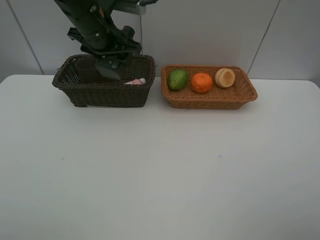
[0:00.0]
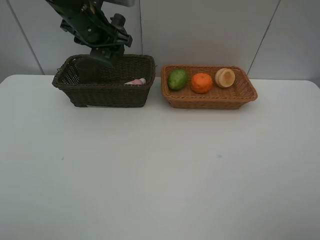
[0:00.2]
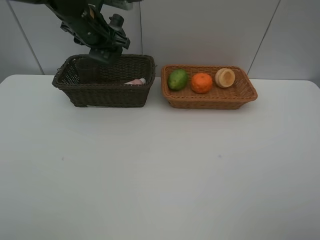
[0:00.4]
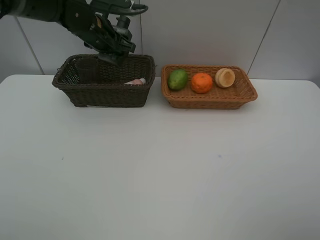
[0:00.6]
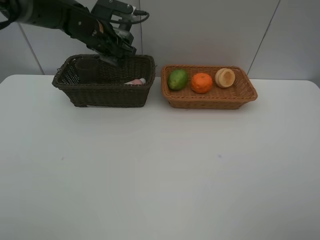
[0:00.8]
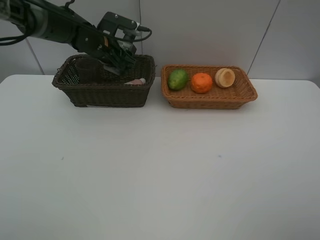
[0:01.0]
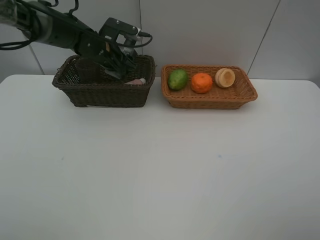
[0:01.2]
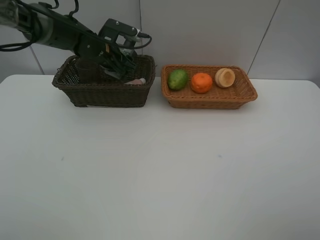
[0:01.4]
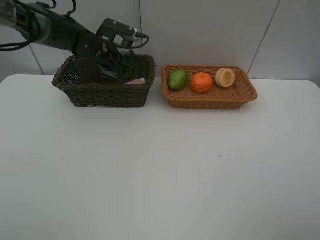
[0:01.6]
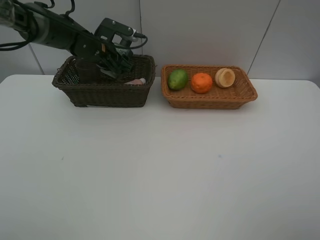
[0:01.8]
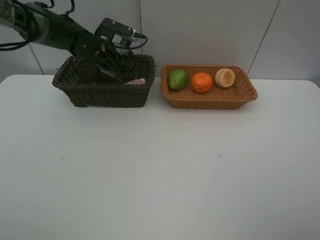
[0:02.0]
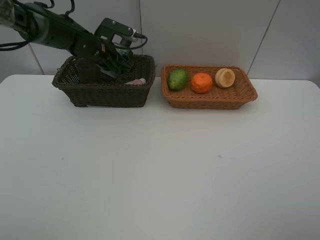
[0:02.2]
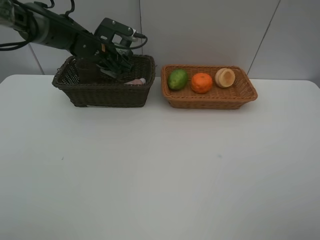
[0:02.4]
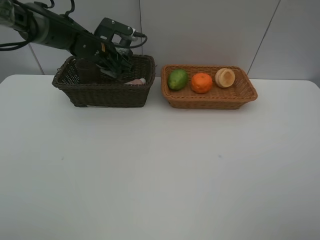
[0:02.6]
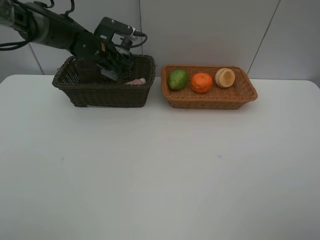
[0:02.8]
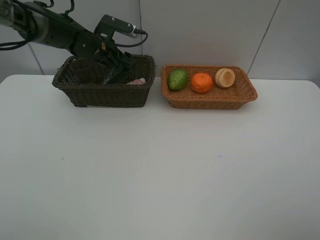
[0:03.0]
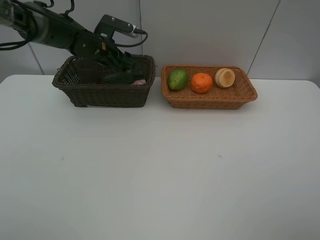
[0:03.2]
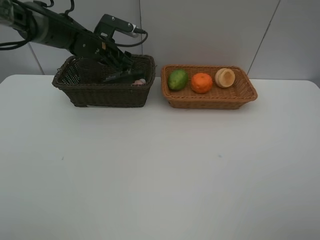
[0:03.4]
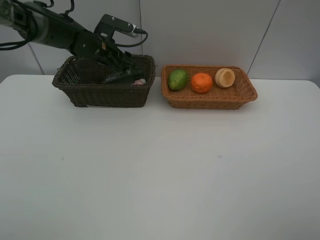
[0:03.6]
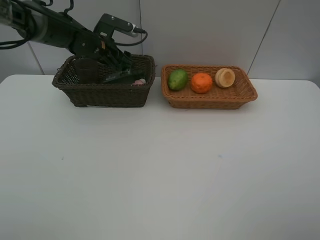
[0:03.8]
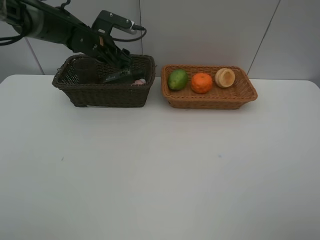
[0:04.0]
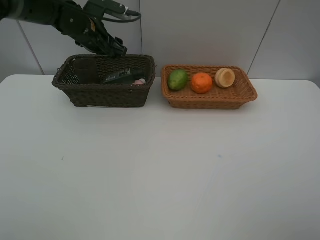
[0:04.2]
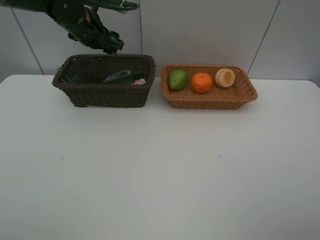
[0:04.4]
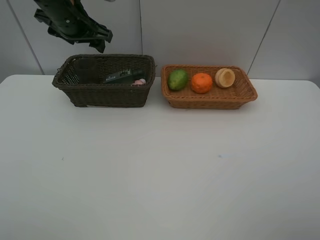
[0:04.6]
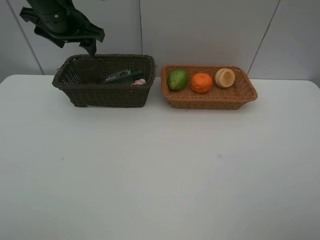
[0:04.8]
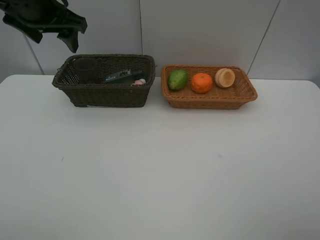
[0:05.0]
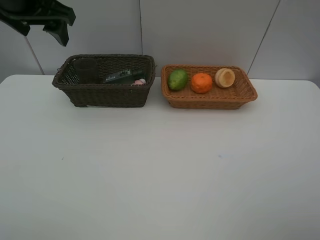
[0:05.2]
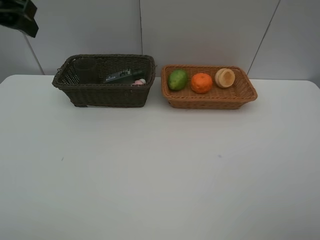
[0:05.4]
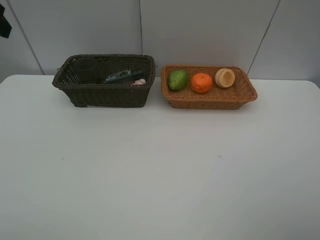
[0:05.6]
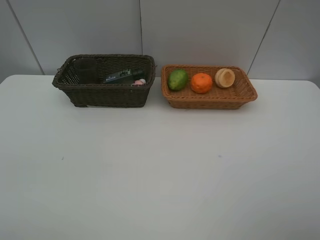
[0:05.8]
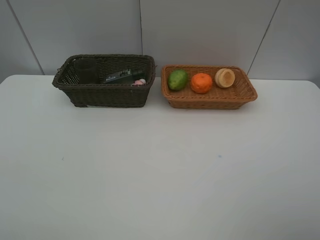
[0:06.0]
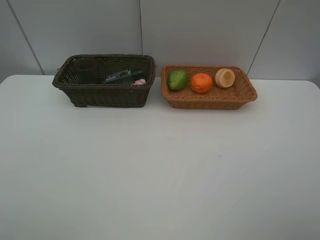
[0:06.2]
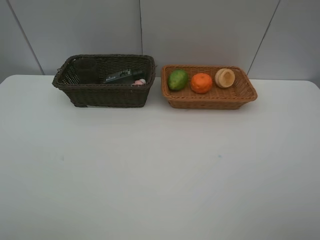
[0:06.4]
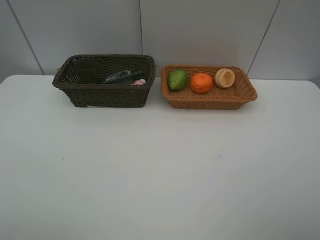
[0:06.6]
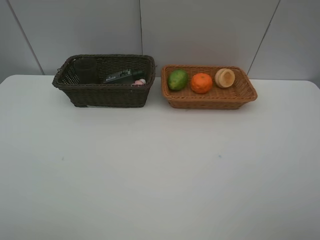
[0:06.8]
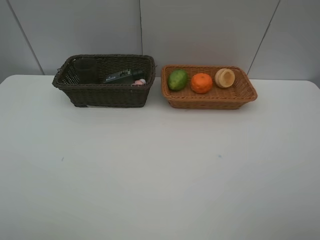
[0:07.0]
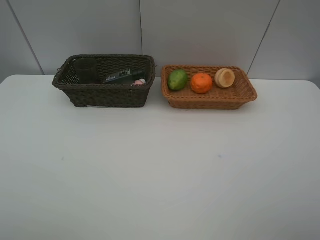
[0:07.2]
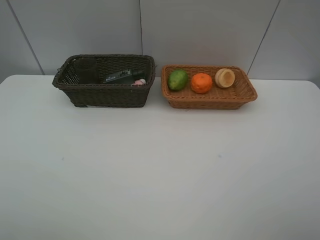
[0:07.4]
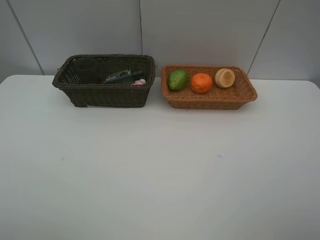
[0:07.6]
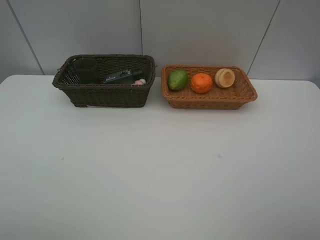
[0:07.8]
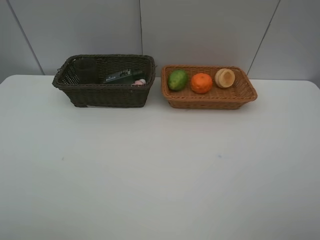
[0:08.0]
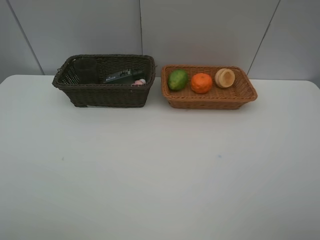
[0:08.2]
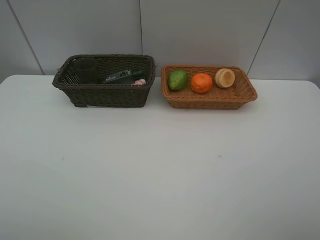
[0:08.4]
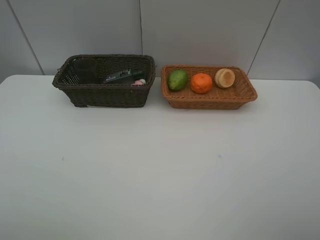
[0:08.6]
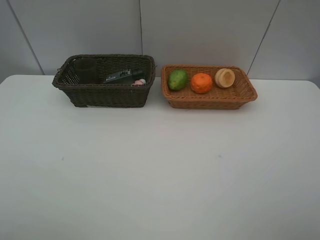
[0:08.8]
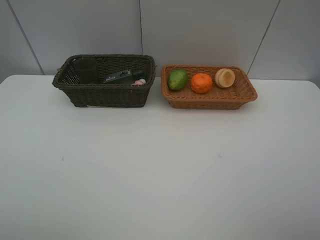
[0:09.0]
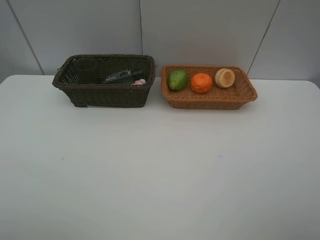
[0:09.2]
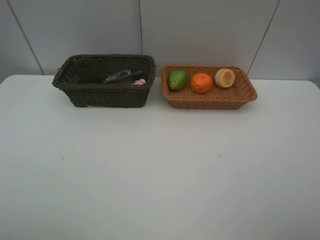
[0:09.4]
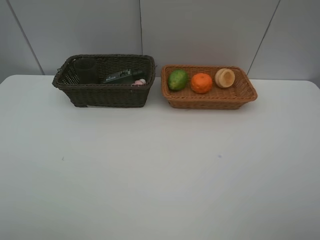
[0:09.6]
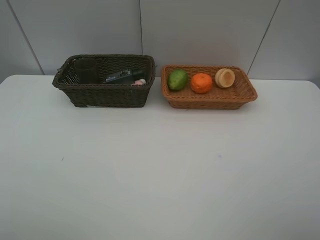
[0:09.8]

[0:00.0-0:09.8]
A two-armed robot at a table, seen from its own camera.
Task of the whole recording: place multiple objects separately in different baskets.
0:00.0 to 0:01.4: The left gripper shifts roughly 10 cm downward and forward.
0:01.4 to 0:02.8: Neither gripper changes place.
0:02.8 to 0:04.2: The left gripper moves upward, about 5 cm.
0:04.2 to 0:05.6: The left gripper travels backward, upward and to the left by roughly 30 cm.
0:08.4 to 0:09.8: Both grippers stay about where they are.

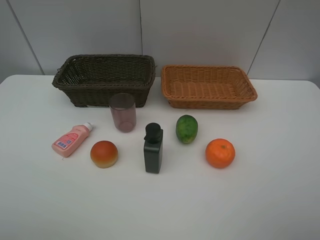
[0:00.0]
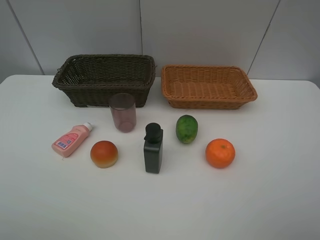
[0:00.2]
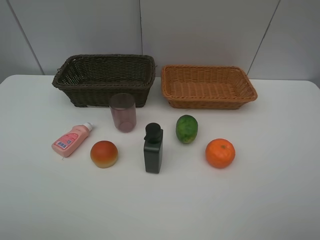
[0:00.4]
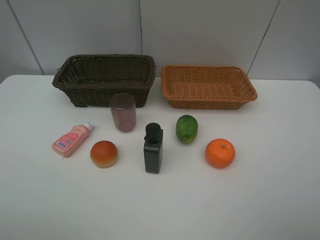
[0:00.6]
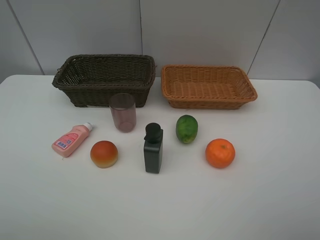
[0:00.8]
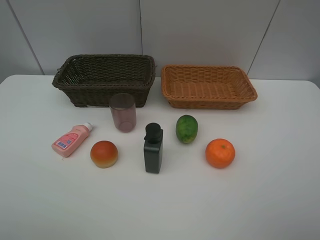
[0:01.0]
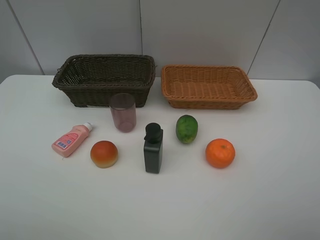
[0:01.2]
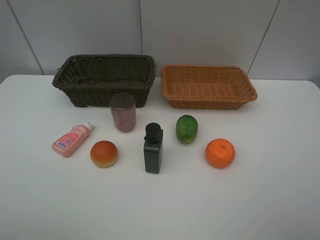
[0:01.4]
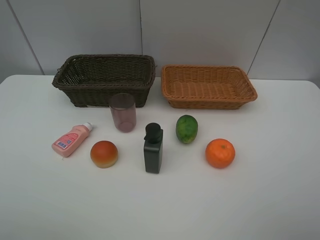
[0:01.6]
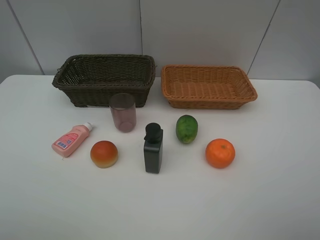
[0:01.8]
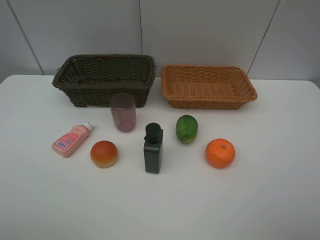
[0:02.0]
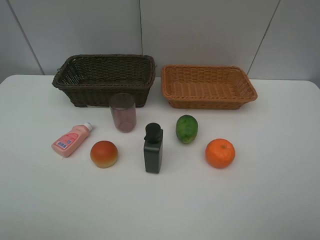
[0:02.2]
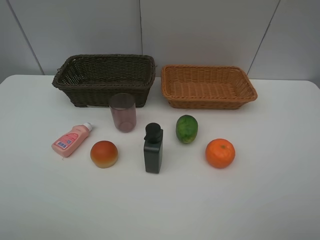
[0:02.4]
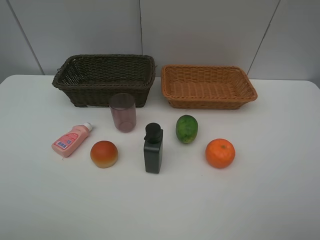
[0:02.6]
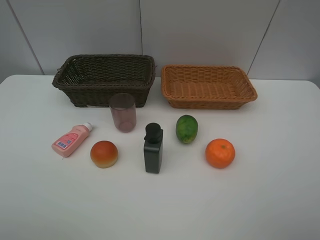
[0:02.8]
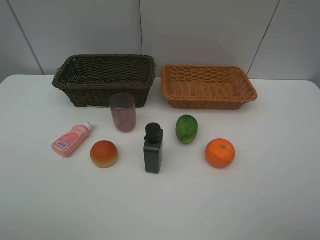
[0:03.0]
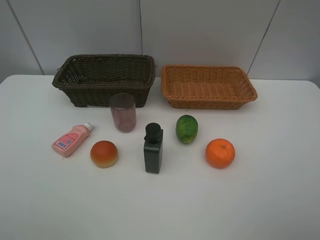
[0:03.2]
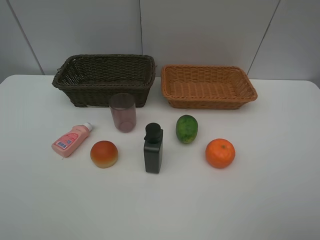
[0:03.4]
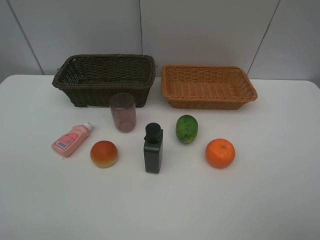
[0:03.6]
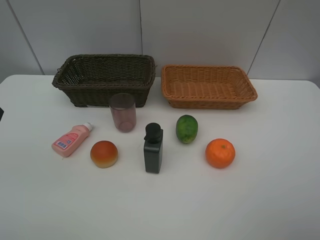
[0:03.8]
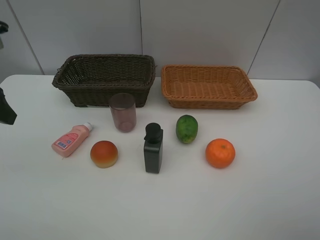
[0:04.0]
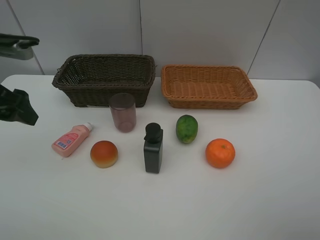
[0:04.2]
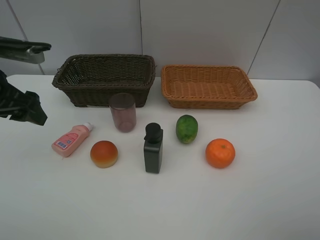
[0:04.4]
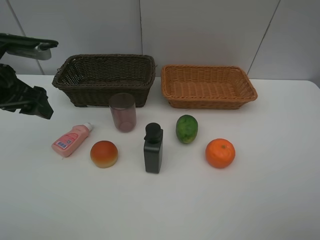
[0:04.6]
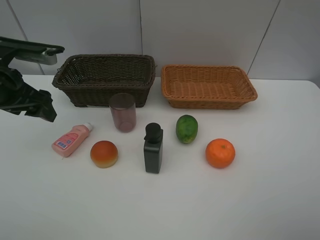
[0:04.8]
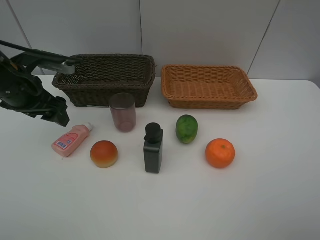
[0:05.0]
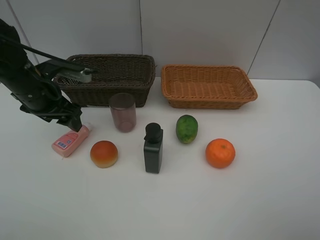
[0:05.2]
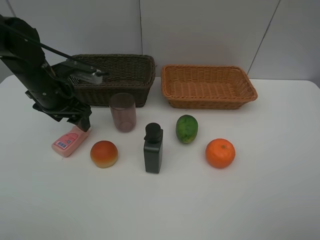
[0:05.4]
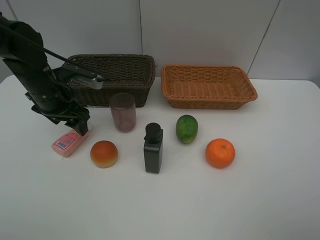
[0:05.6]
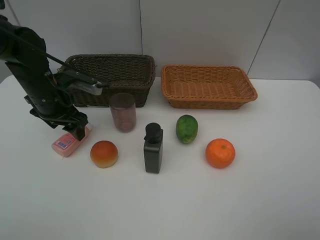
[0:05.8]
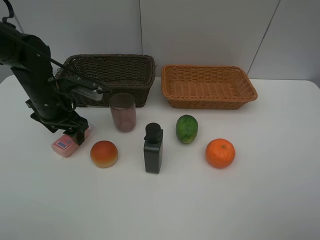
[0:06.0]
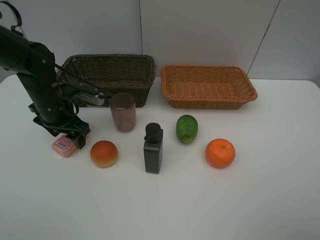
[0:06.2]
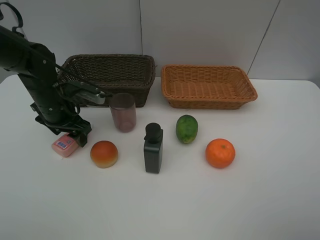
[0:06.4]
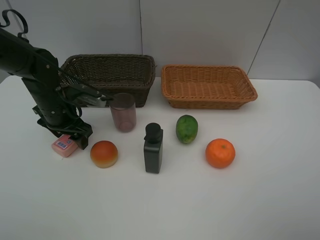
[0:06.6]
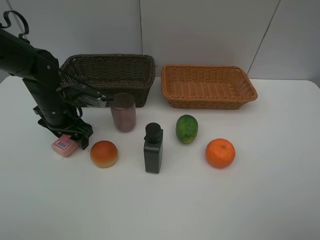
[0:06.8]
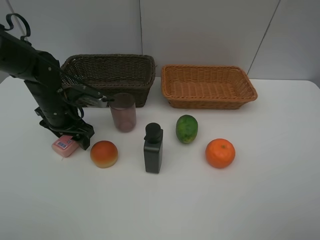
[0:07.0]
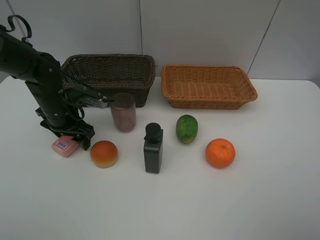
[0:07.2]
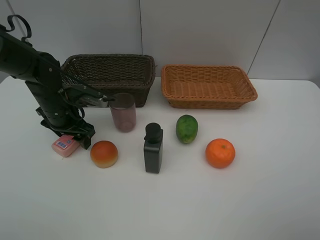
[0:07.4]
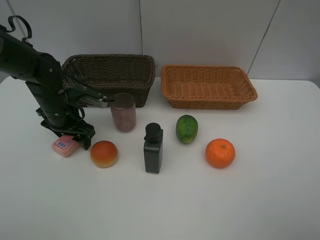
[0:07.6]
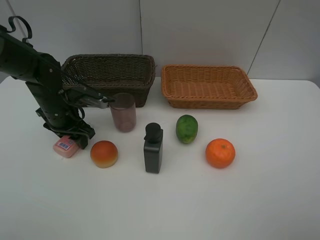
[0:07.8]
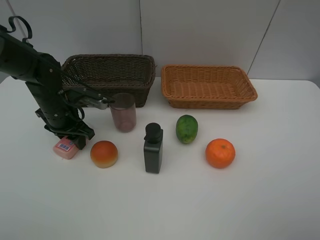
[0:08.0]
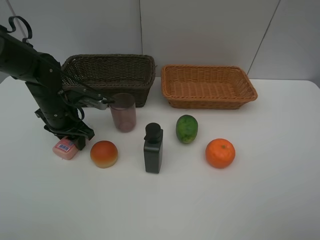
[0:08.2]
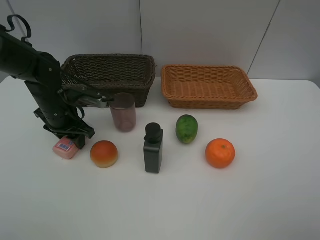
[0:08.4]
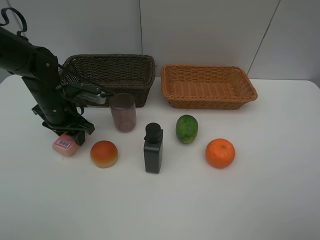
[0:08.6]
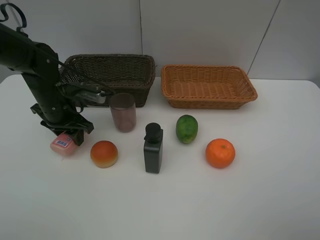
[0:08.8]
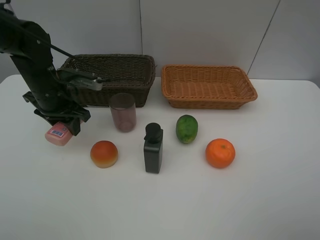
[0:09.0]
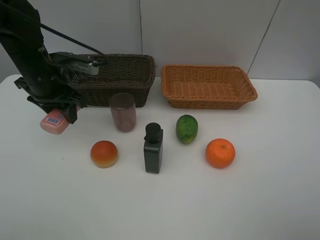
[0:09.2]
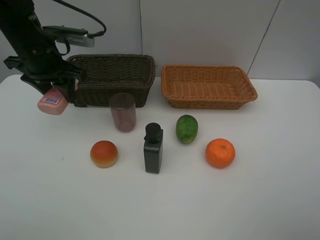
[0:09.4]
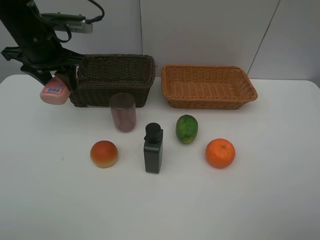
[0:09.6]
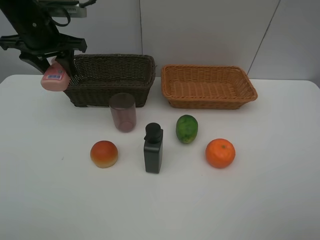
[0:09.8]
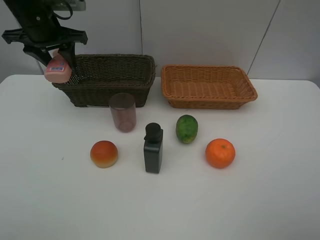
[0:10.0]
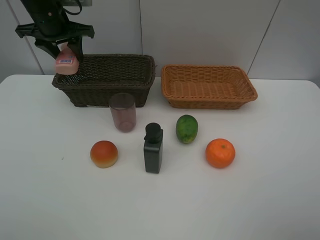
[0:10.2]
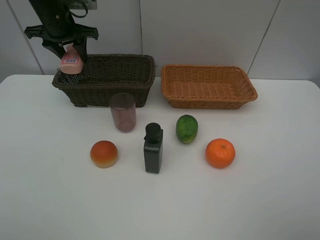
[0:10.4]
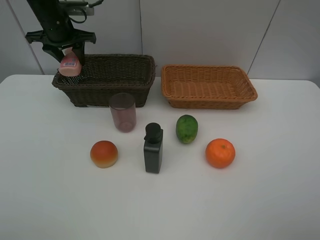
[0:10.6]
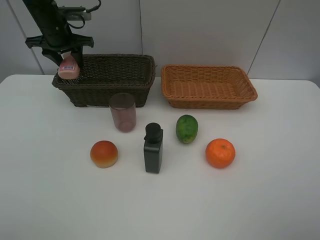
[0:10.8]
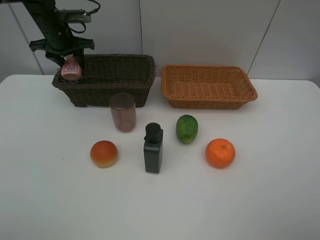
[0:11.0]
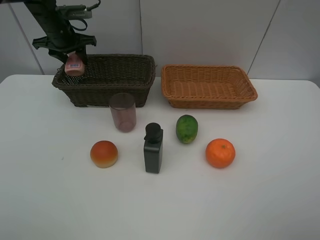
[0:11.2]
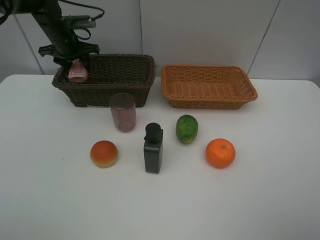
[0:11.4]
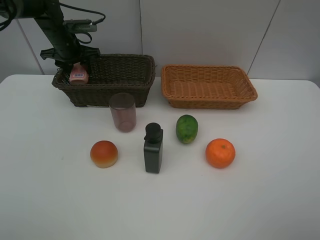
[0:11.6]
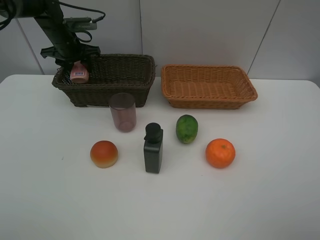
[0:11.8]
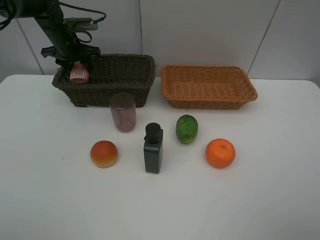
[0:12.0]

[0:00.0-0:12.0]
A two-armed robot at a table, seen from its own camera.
Task of the whole recording: place multiple objects separately in different baskets.
0:00.0 to 0:01.6: Neither gripper changes place.
0:03.0 to 0:04.4: The left gripper is displaced forward by roughly 20 cm.
0:04.4 to 0:06.0: The left gripper travels downward, forward and to the right by roughly 15 cm.
0:06.0 to 0:07.6: There are only small adjustments of the grippers.
0:07.6 to 0:09.0: The left gripper travels upward by roughly 5 cm, and closes its fingers.
0:09.0 to 0:10.4: The left gripper travels forward and upward by about 15 cm.
0:10.4 to 0:12.0: The left gripper is displaced downward and forward by some 10 cm.
